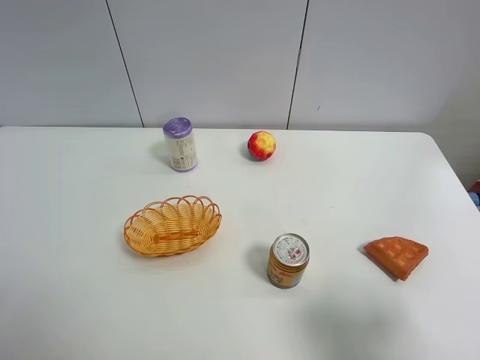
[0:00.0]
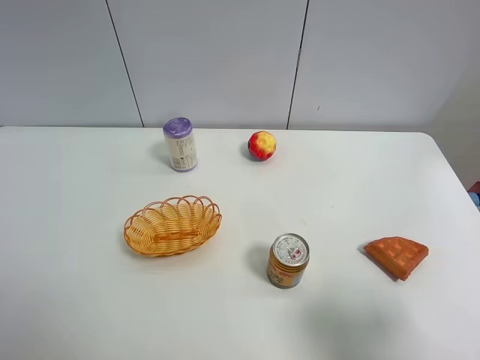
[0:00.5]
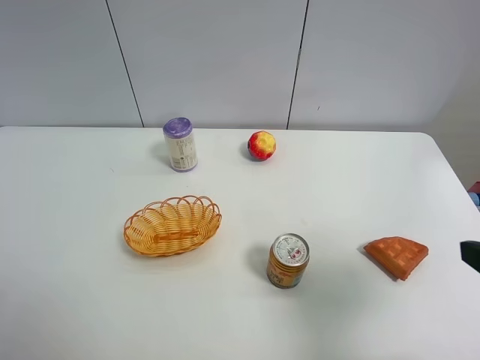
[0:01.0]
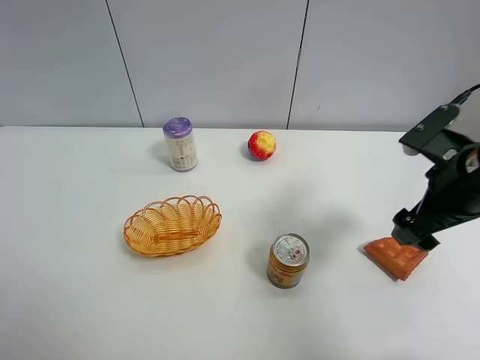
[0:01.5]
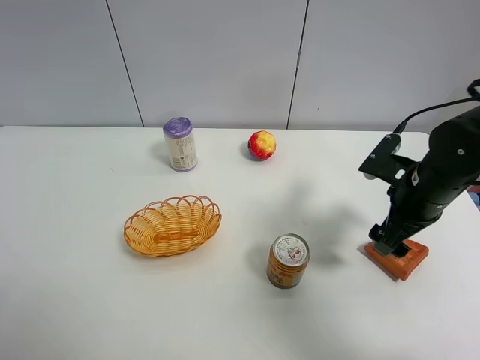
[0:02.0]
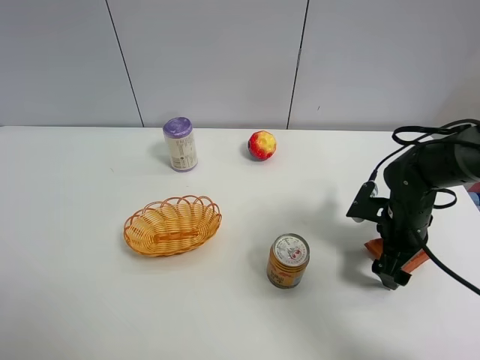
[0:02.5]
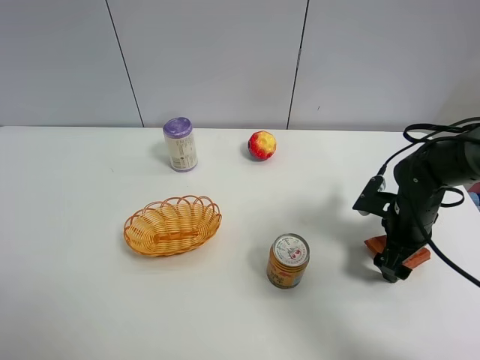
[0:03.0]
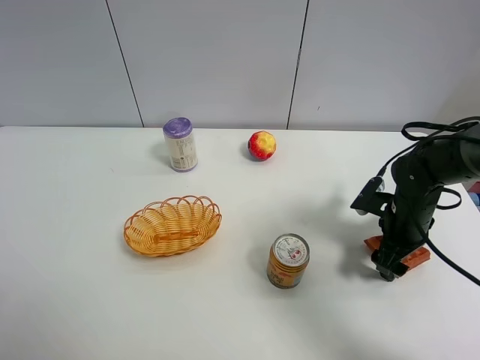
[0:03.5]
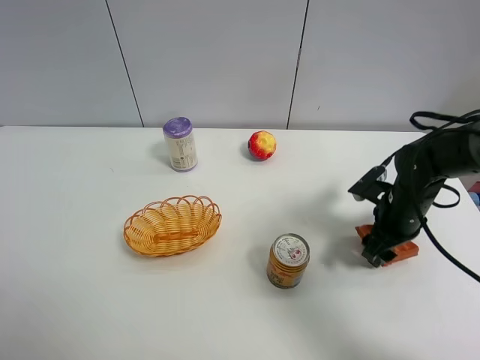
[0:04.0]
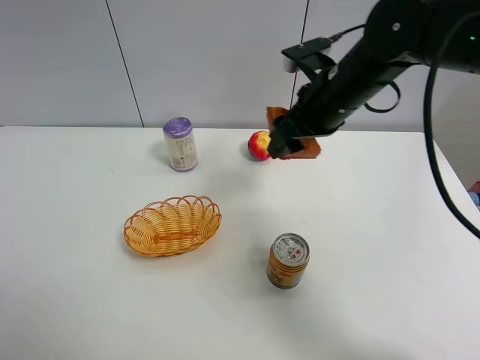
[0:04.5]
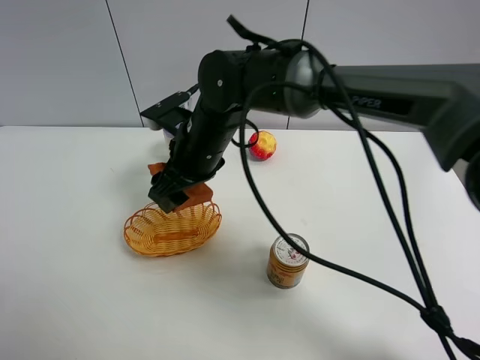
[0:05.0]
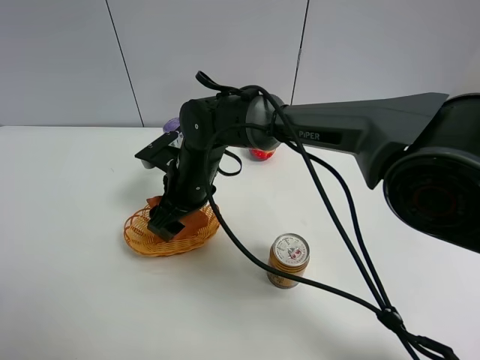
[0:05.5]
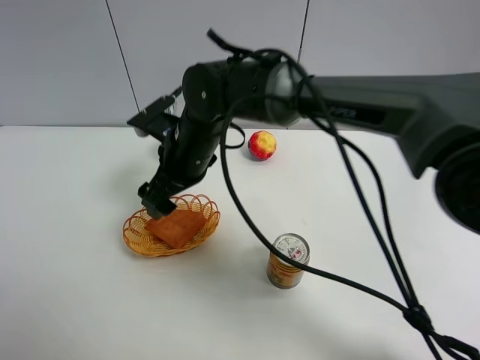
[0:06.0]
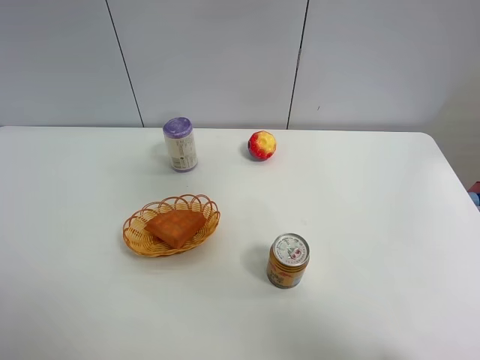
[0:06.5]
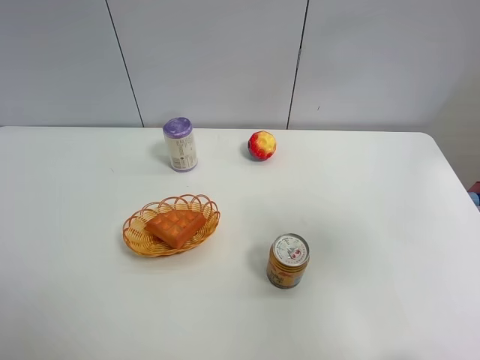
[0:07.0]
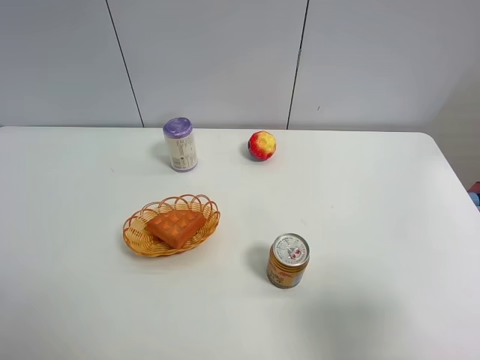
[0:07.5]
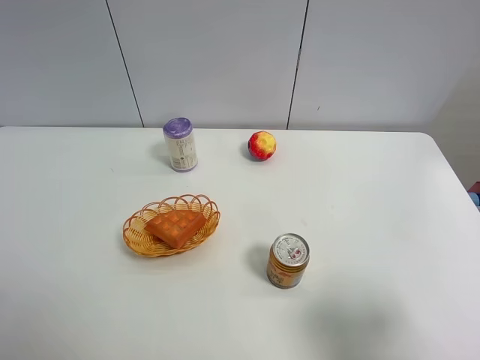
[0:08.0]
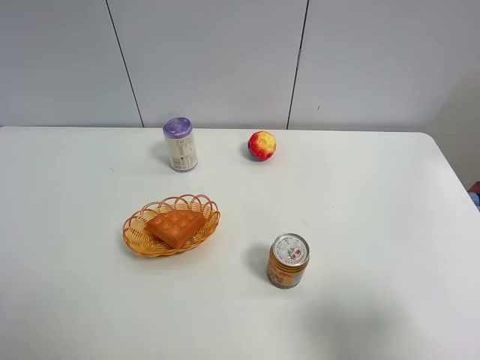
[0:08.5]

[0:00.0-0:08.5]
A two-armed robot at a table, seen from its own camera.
Task of the whole recording: Put the bakery in the basket.
Step, 0:00.0 to 0:03.5: Grasp the bread with right gripper.
Step, 0:04.0 to 0:06.0: Place the bread in the basket with right gripper.
0:00.0 to 0:02.0: The right gripper moves forward, about 25 cm.
0:02.0 to 0:04.0: The right gripper shifts about 5 cm downward, and closes its fingers.
0:04.0 to 0:06.5: The right gripper swings up and down, approximately 40 cm each way, with 2 reversals, and opens its fingers.
0:06.5 to 0:08.5: The right gripper shifts about 35 cm downward, backward and to the right.

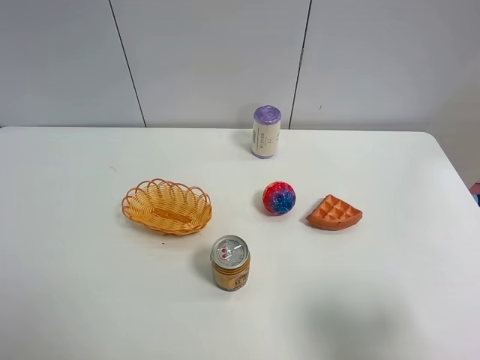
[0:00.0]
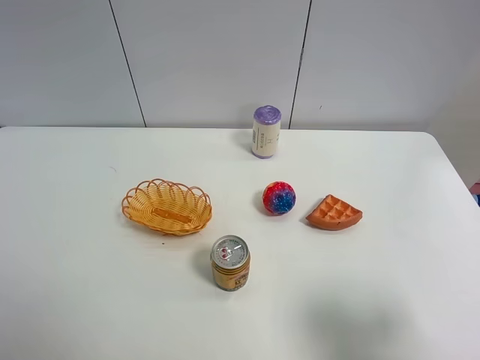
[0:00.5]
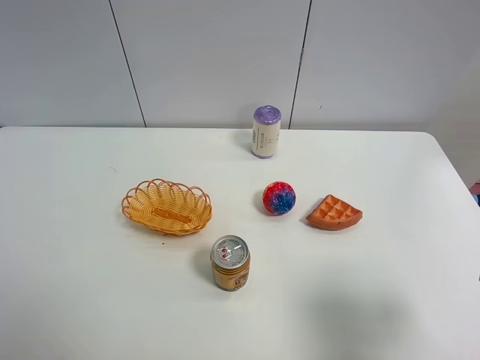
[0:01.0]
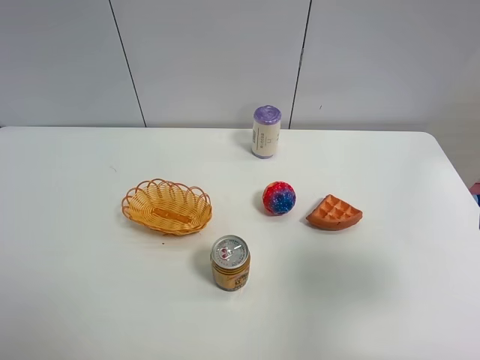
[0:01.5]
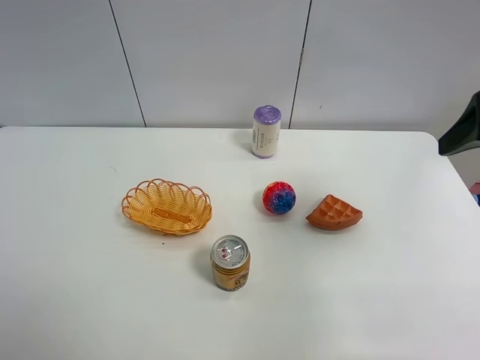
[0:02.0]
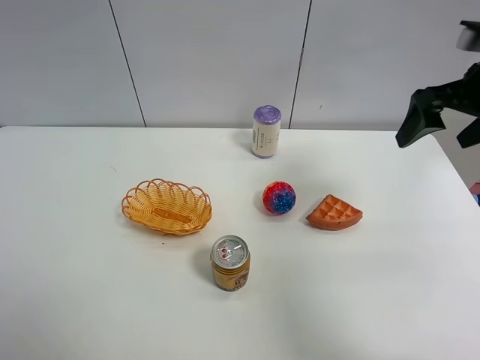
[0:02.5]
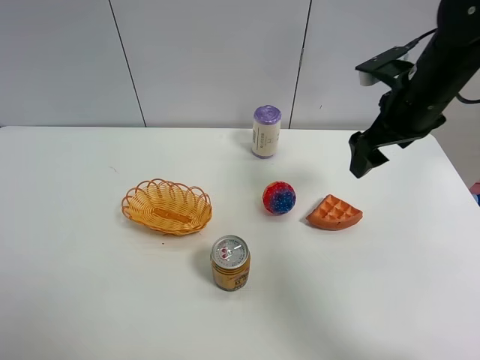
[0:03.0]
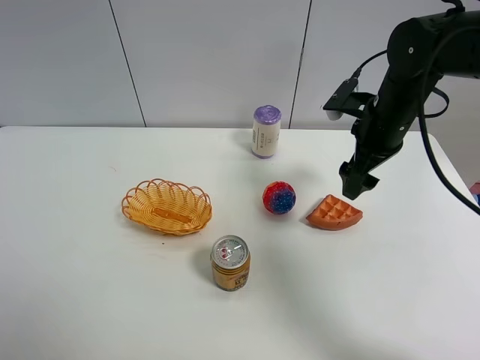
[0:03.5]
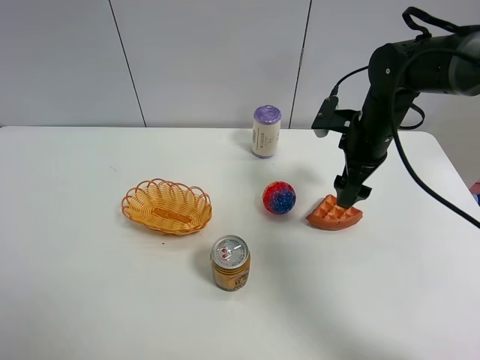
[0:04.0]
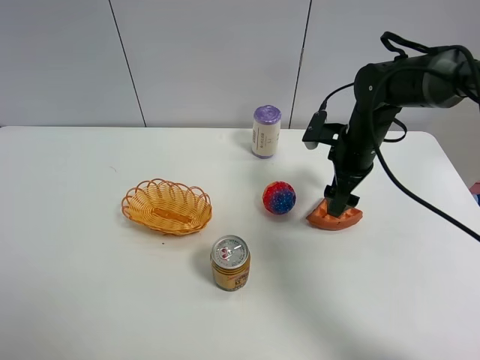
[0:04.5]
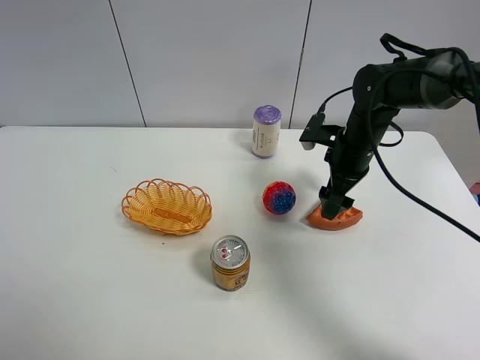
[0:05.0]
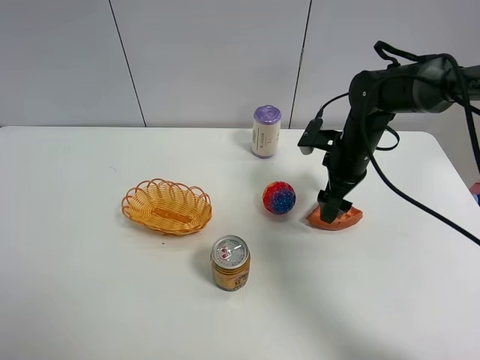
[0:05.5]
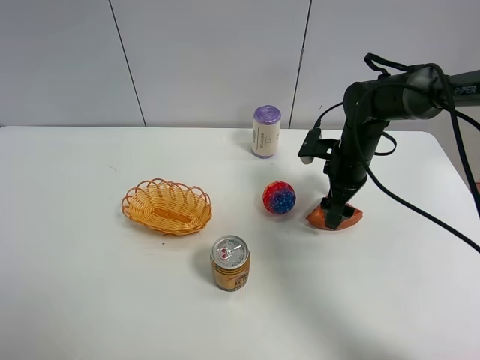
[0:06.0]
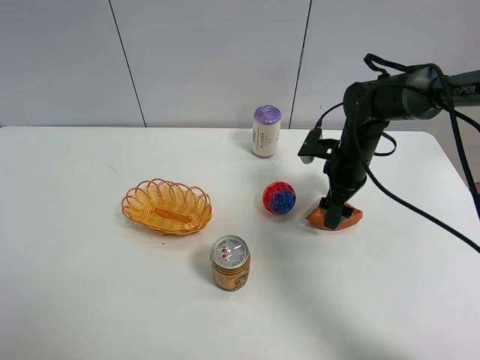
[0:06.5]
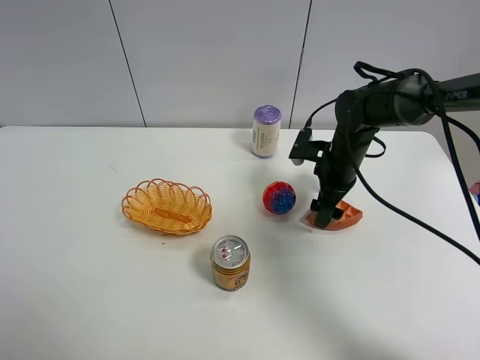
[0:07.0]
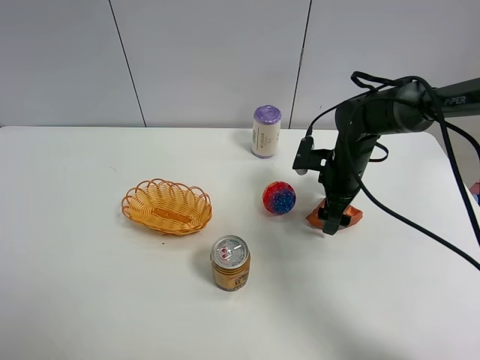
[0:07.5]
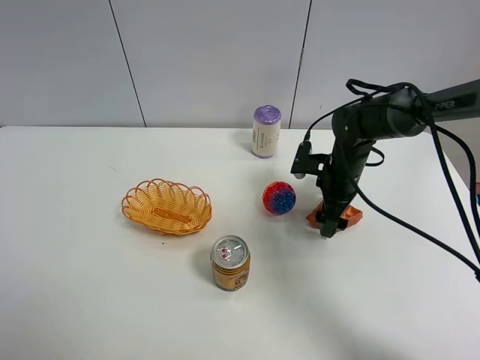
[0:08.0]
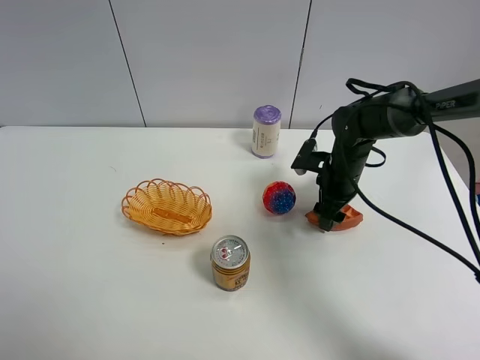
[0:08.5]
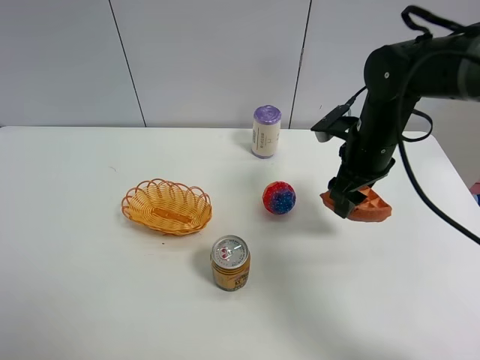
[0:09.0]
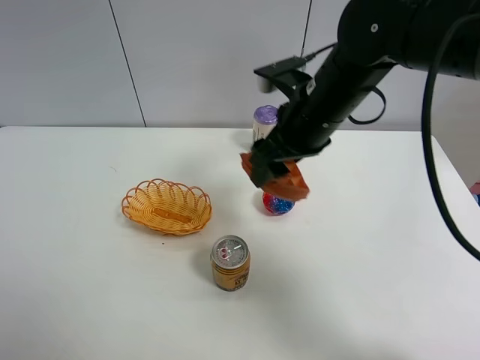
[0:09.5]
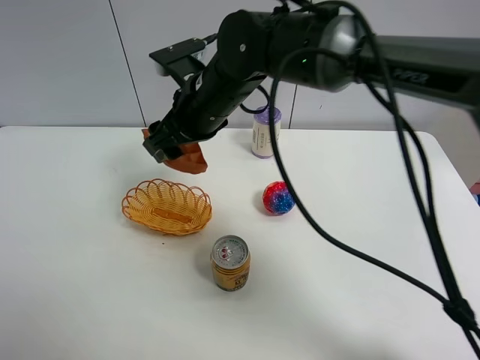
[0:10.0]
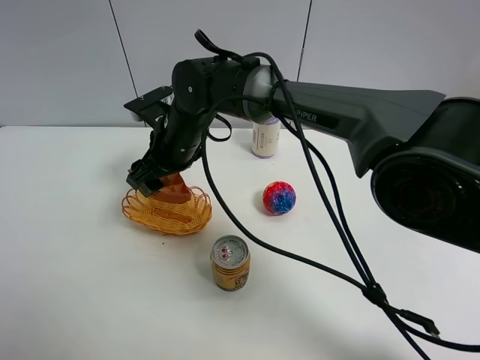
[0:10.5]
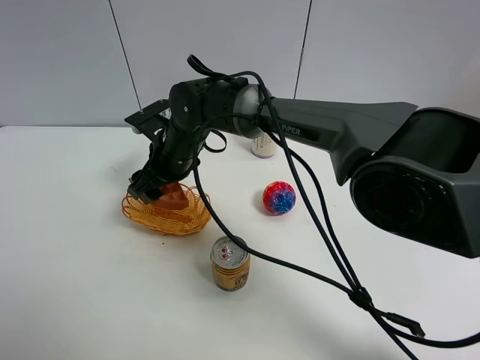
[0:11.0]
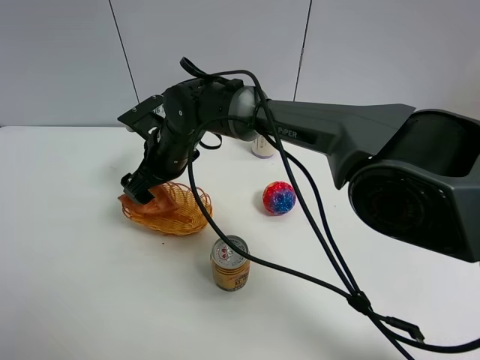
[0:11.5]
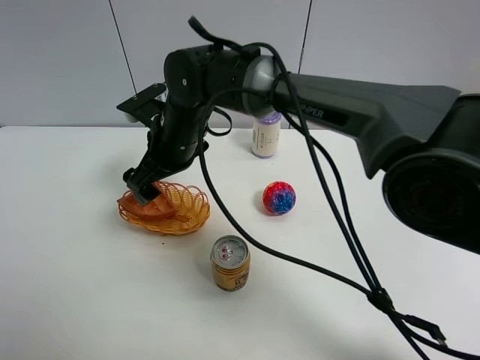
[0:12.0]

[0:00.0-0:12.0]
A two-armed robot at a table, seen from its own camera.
Task of the whole recording: Put the bakery in the basket.
Step, 0:00.0 to 0:08.0: Grasp the bread with right gripper.
0:00.0 to 0:02.0: The right gripper moves forward and upward, roughly 20 cm.
0:02.0 to 0:04.0: The right gripper travels downward, forward and to the left by about 25 cm.
0:04.0 to 0:06.0: The right gripper goes about 5 cm downward.
0:06.0 to 0:08.0: The grippers stay close to where they were, moving slightly.
0:08.0 to 0:10.0: The right gripper heads to the left and upward, covering some 25 cm, and closes its fingers.
0:10.0 to 0:12.0: The right gripper opens up.

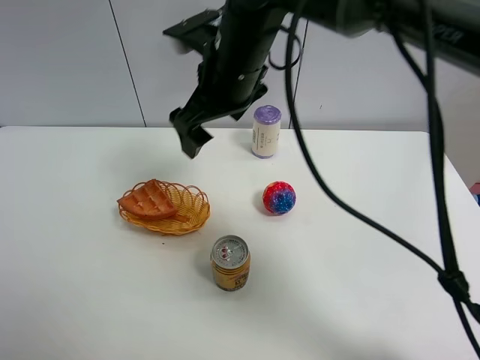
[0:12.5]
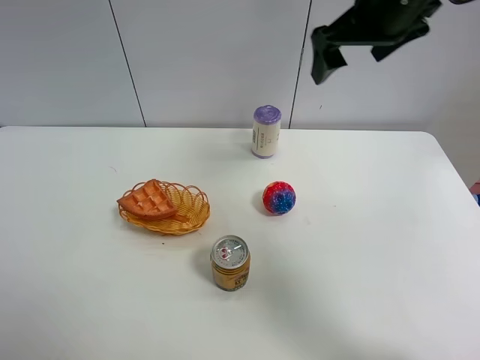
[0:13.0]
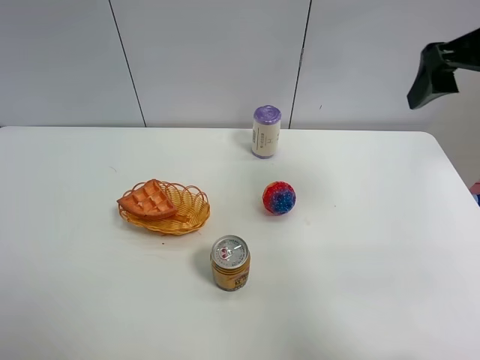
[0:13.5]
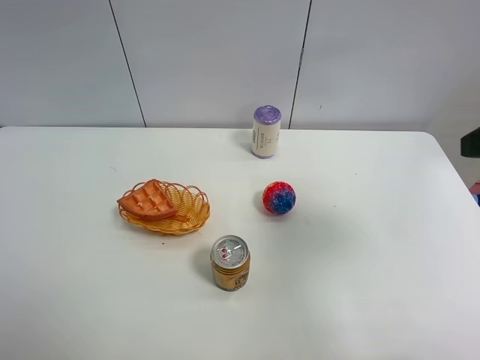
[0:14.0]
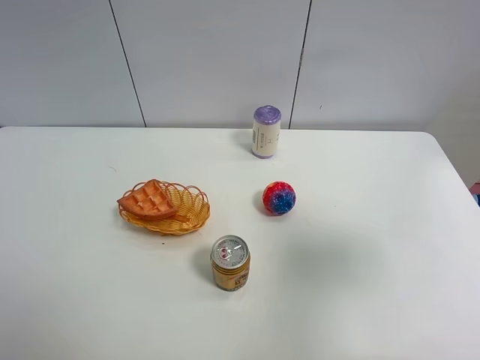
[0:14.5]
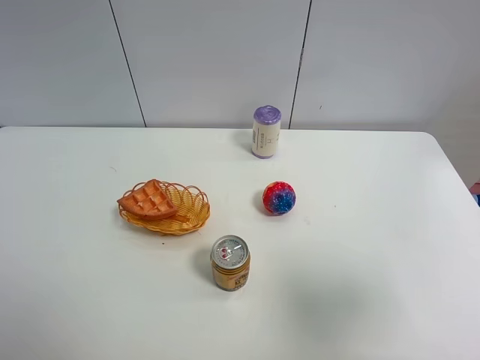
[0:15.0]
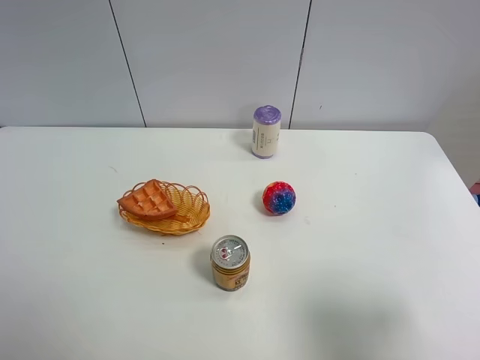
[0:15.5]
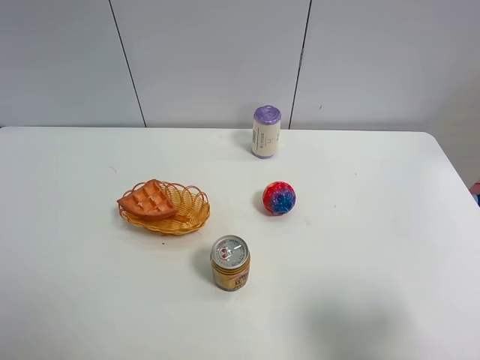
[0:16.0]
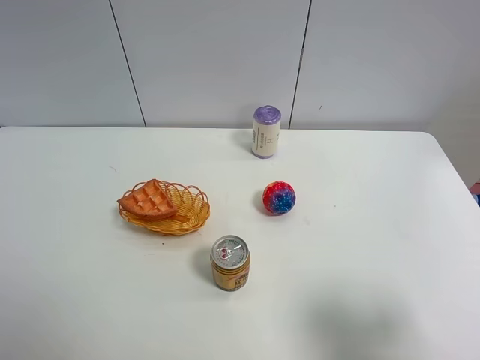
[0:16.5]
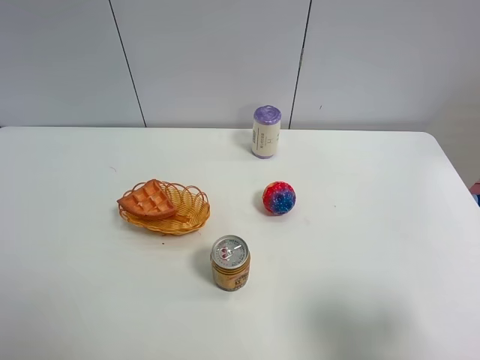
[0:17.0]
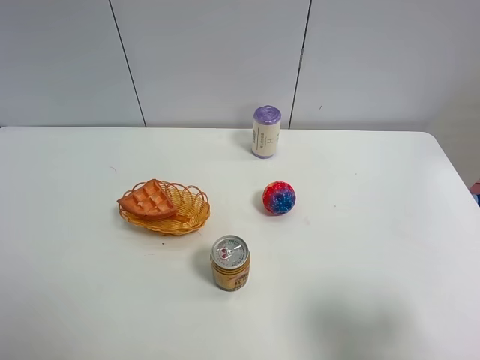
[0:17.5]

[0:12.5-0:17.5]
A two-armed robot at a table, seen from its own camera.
Task of the whole recording: Put the bakery in the basket.
0:12.5 to 0:15.0: The right gripper goes roughly 40 cm backward and to the right.
0:15.0 to 0:17.5: The right gripper heads downward, covering about 10 cm.
